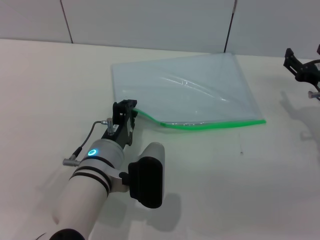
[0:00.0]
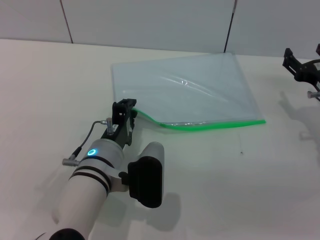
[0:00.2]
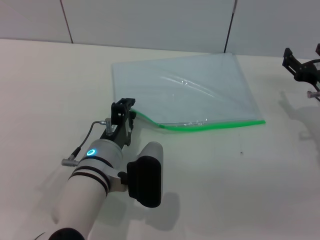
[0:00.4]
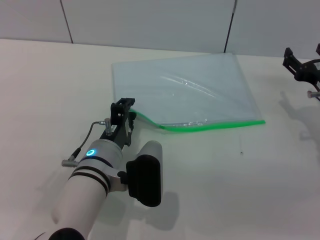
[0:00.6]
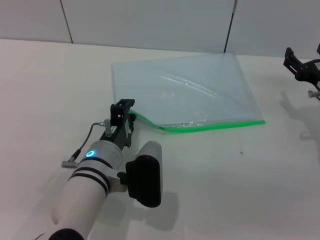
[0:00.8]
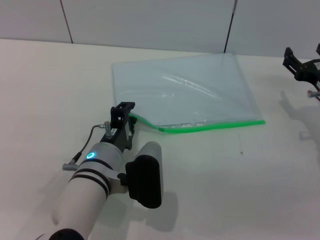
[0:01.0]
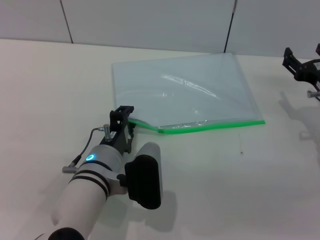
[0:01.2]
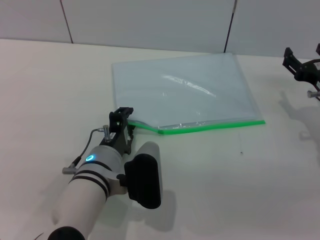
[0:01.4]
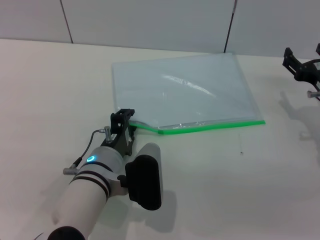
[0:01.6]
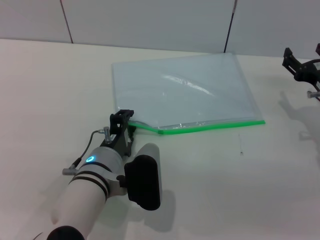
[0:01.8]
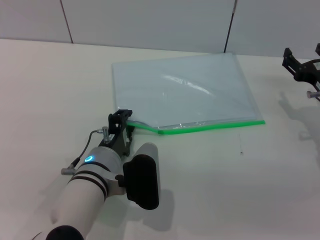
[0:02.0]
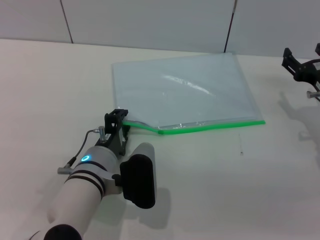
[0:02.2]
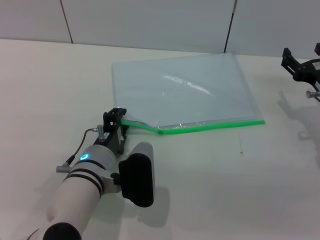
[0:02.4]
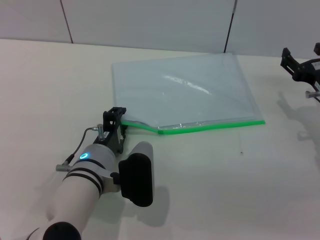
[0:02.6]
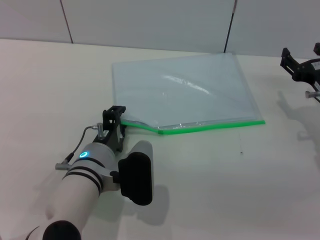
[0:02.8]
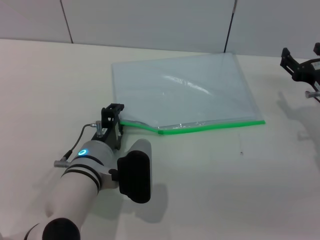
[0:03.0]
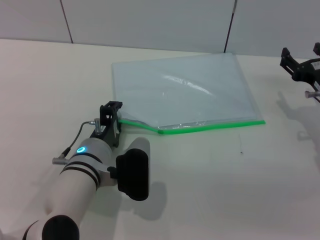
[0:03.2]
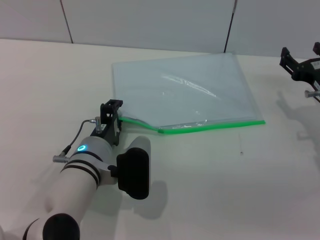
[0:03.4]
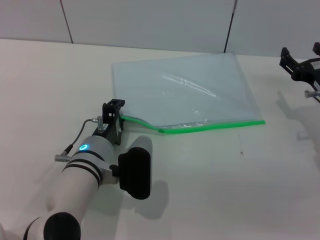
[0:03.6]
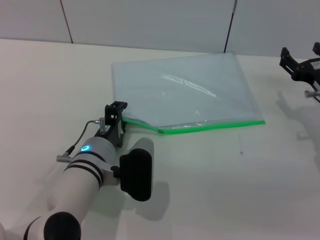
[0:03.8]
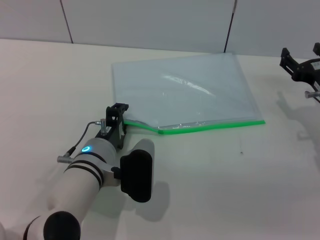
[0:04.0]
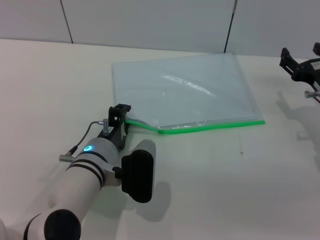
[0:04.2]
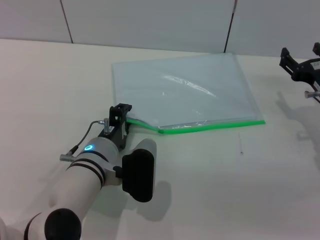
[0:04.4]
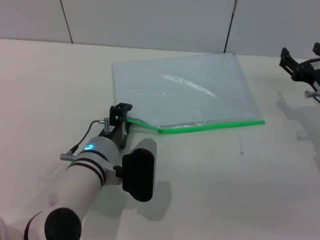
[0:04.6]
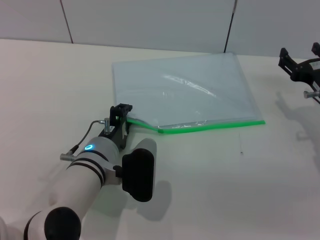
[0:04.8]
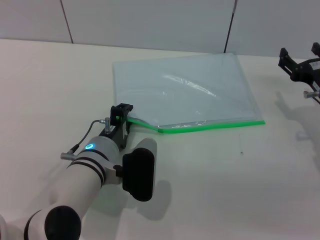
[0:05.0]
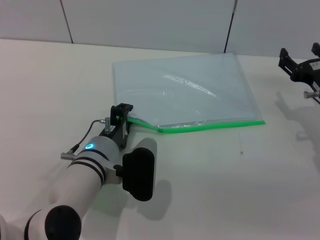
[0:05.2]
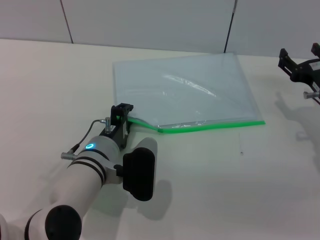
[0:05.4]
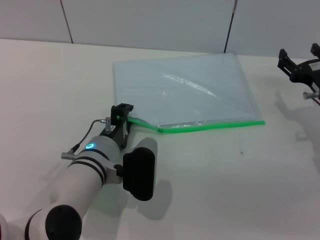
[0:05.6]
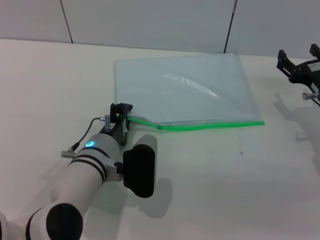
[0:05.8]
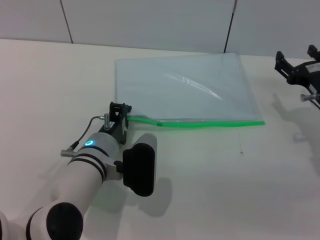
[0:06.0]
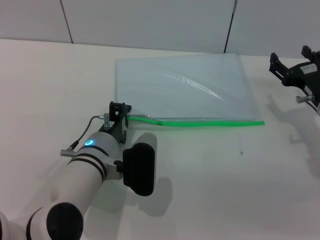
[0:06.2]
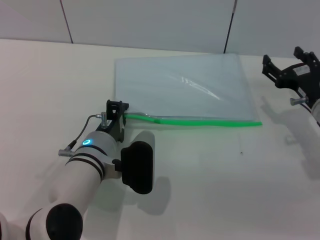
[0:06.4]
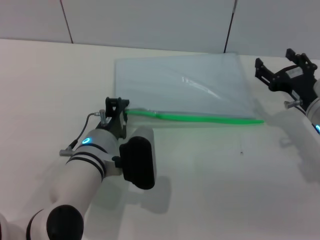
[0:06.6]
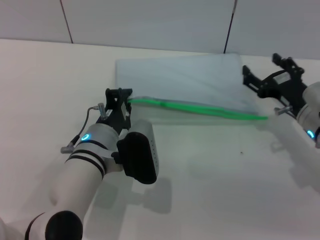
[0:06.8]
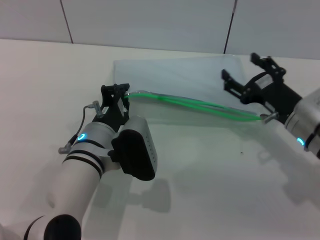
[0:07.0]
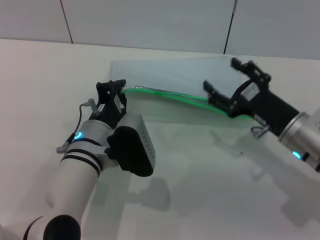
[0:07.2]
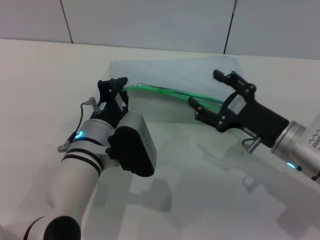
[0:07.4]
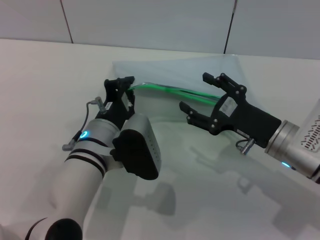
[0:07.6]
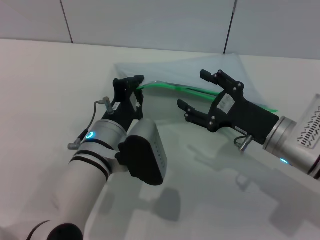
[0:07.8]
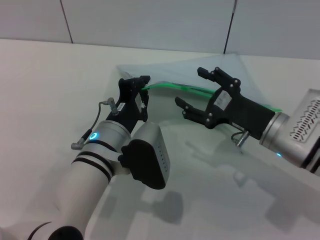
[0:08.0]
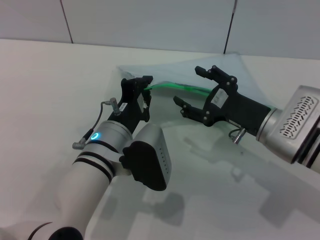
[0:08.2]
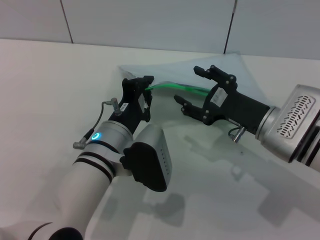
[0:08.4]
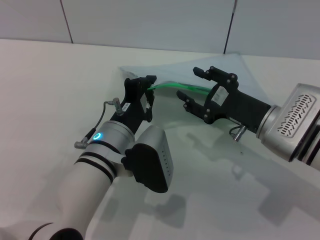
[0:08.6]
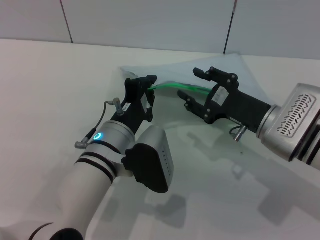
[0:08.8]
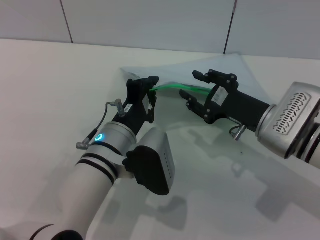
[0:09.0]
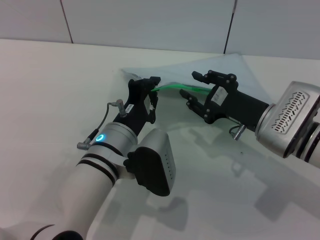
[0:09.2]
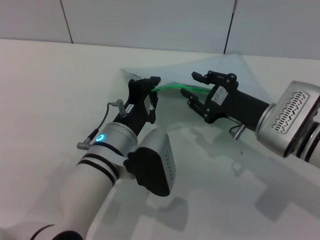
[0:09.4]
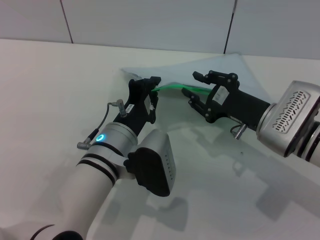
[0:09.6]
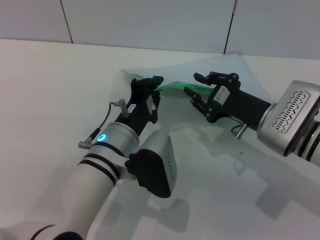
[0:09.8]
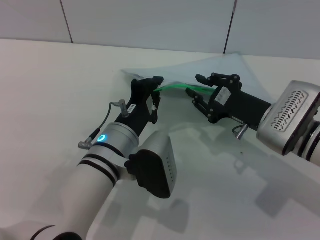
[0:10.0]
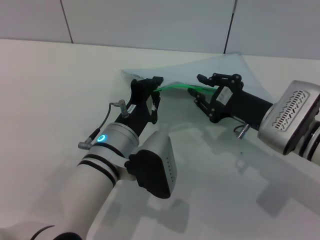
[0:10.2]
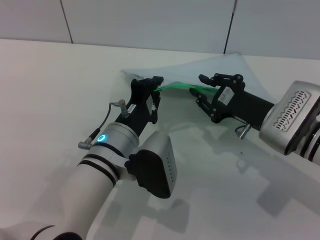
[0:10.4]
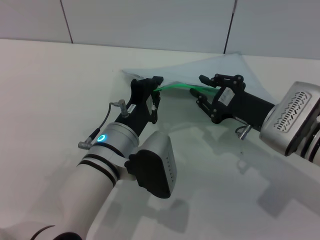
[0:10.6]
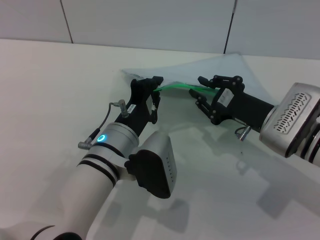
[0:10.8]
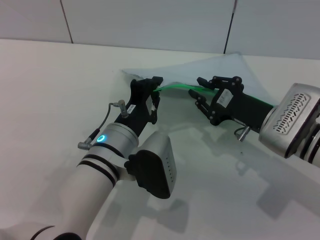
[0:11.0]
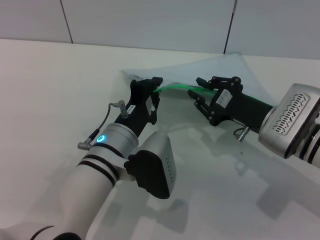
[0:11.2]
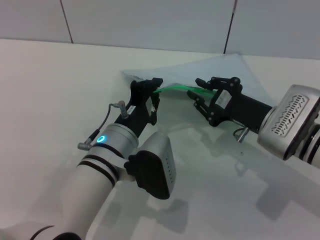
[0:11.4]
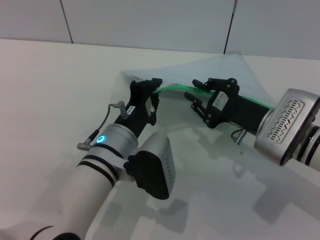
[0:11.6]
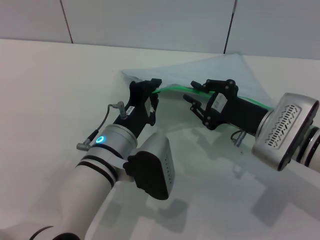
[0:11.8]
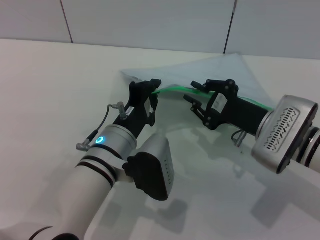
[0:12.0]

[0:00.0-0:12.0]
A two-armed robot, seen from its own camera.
Step, 0:00.0 to 0:07.4: Pick up the transparent plastic bag with the left gripper.
0:00.0 to 0:03.0: The grippers move only a little.
0:03.0 to 0:04.4: Both grippers stay put.
0:04.4 to 0:06.0: Both grippers stay about where they are.
0:06.0 to 0:07.6: The right gripper moves to the left and backward, some 10 cm.
0:07.6 to 0:09.0: The right gripper closes up.
0:09.0 to 0:10.4: Both grippers stay about where they are.
0:10.4 to 0:12.0: The grippers stay close to where they were, moving slightly.

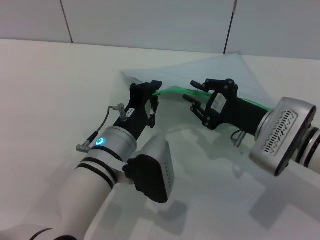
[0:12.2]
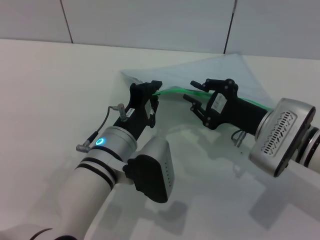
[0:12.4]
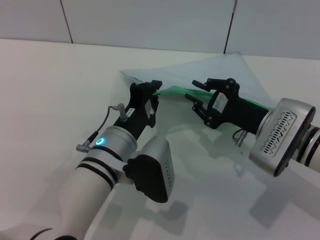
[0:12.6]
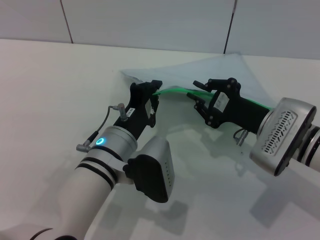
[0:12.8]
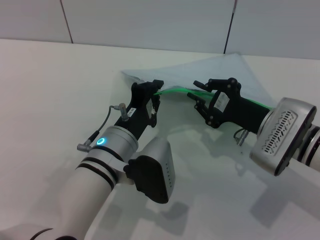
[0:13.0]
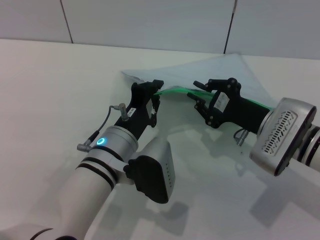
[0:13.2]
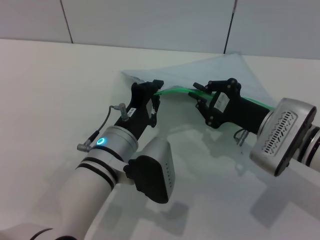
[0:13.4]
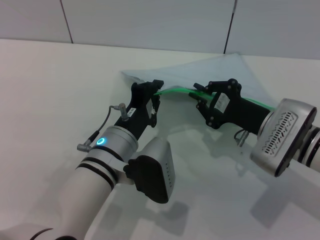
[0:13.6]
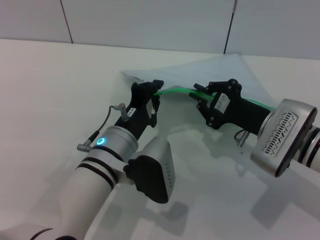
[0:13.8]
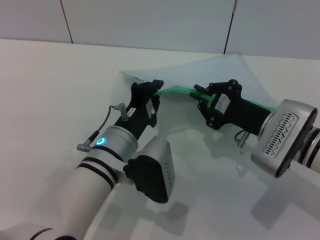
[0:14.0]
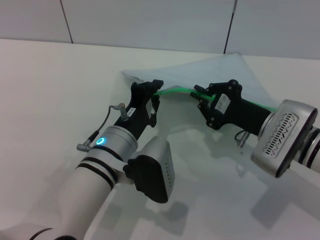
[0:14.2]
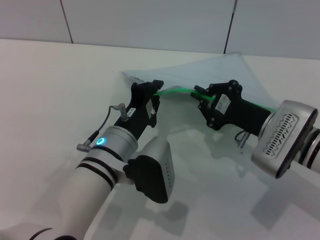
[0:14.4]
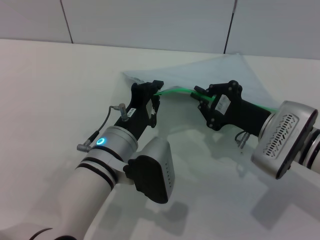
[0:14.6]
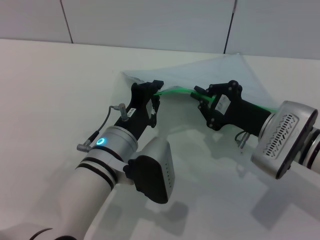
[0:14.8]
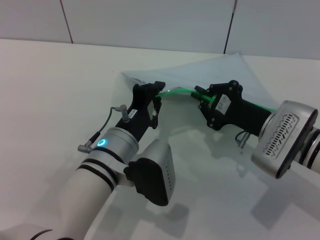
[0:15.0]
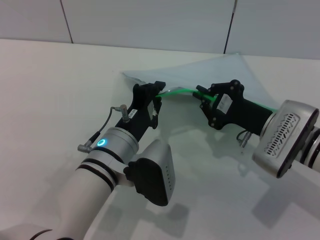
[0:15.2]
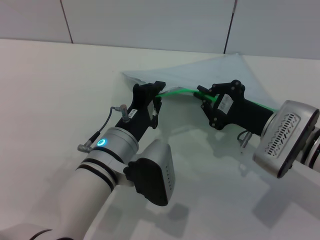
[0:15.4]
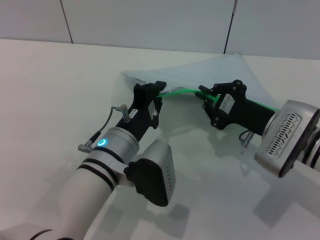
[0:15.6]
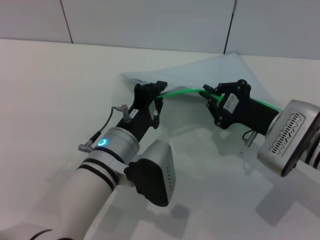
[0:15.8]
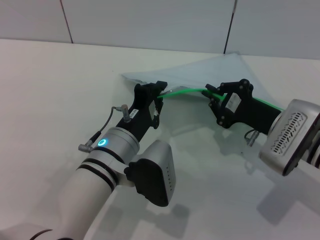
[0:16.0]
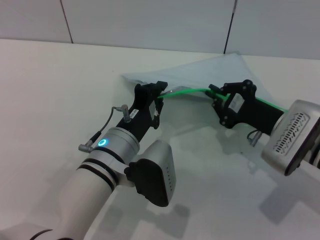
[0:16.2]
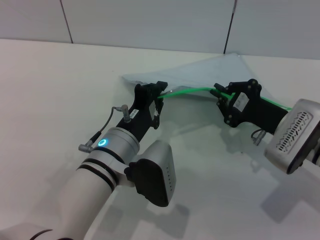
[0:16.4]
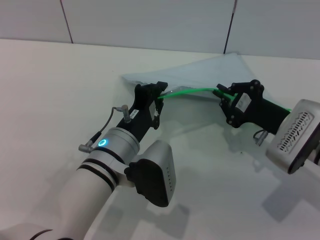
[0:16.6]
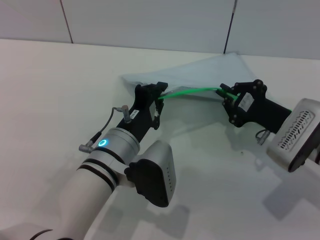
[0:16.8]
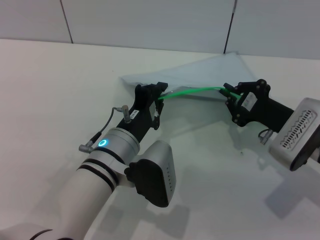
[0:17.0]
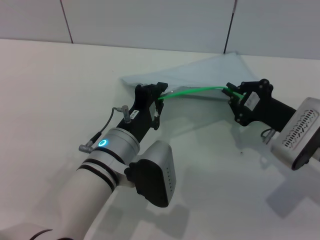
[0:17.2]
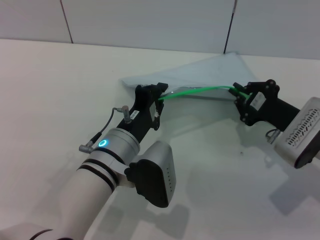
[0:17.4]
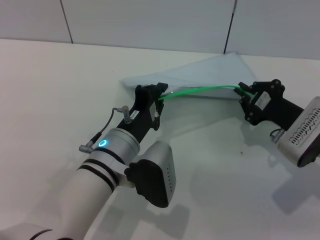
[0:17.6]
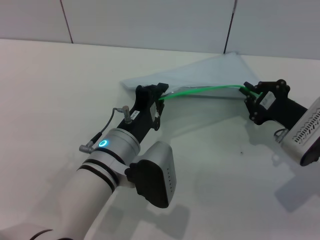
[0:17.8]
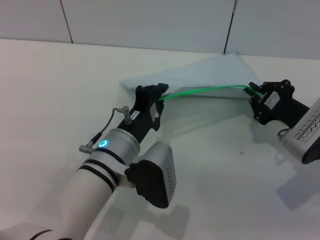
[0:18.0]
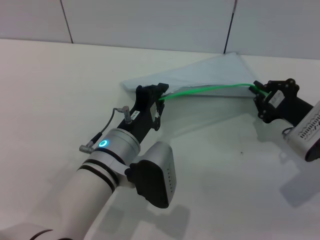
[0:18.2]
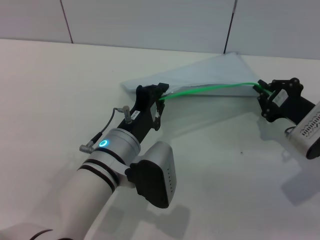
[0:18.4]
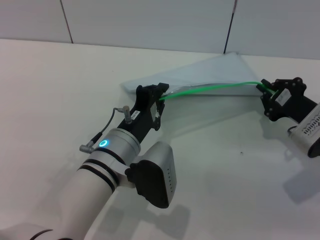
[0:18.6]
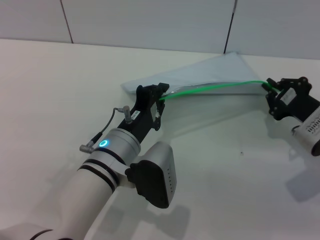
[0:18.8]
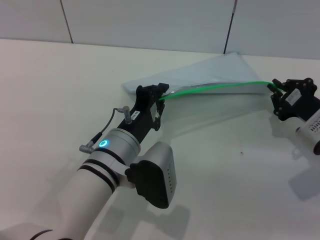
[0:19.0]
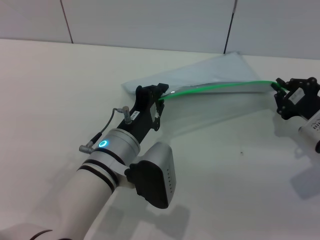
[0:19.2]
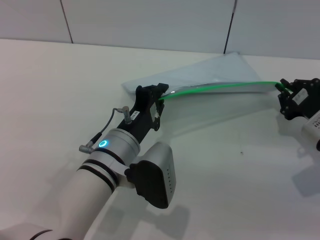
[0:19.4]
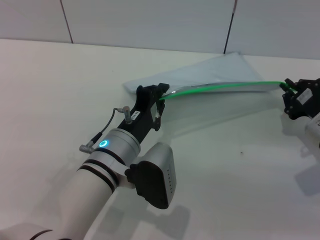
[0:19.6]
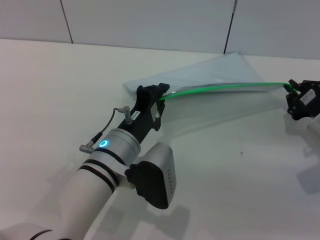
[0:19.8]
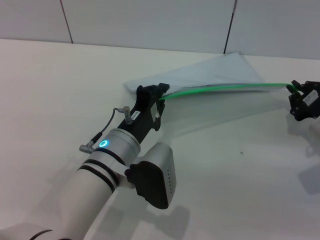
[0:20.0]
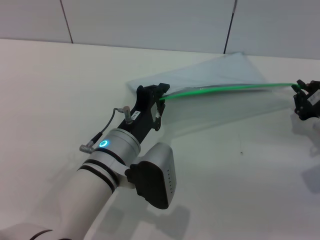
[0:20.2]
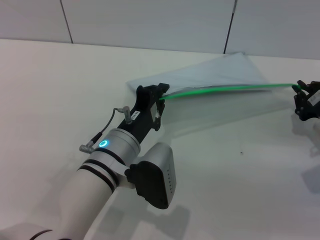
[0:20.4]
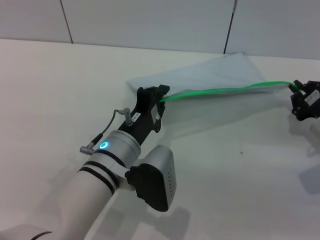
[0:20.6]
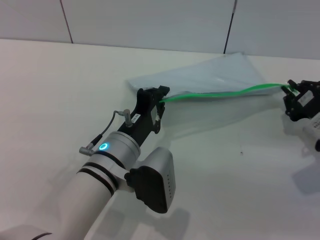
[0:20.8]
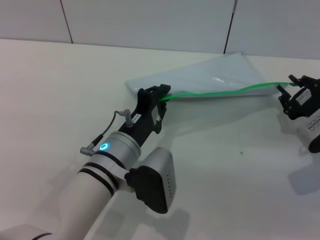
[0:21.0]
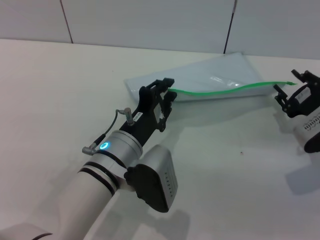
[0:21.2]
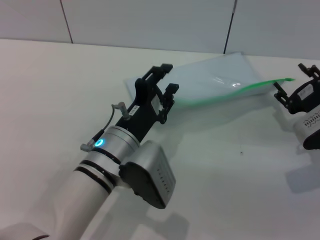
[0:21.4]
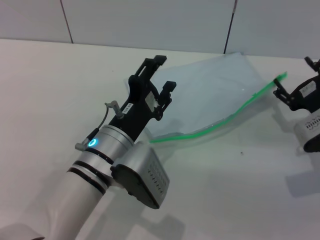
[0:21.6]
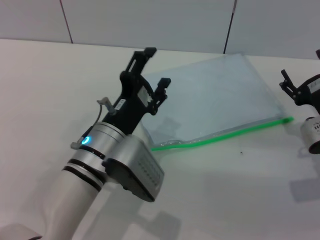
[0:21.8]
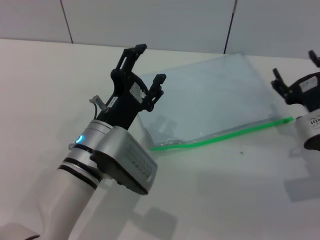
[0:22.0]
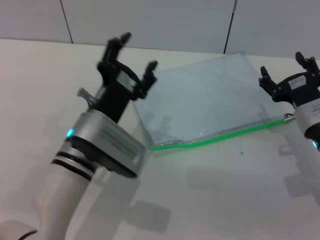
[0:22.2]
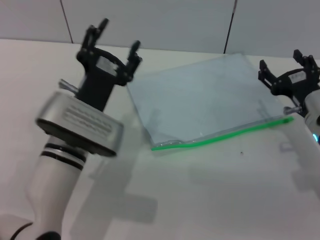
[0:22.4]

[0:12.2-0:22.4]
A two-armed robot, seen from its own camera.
Step, 0:12.2 to 0:21.0: Pulling up the zipper on the transparent plastic bag with the right gripper to close it.
Step, 0:21.2 to 0:22.0: Place the transparent plastic bag.
0:12.2 to 0:15.2: Neither gripper changes place.
0:15.2 to 0:16.6: The grippers stay close to where they were, moving slightly.
0:16.6 to 0:18.0: There are only small adjustments of the grippers.
0:18.0 to 0:21.0: There are only small adjustments of the grippers.
0:21.0 to 0:22.4: The right gripper opens up, while the left gripper ends up approximately 5 cm from where it was, and opens up.
